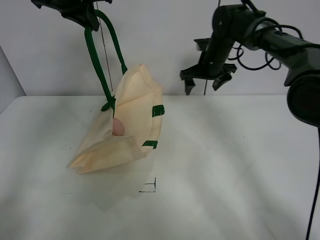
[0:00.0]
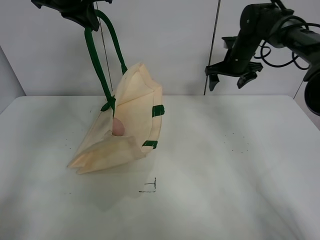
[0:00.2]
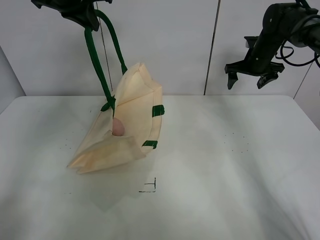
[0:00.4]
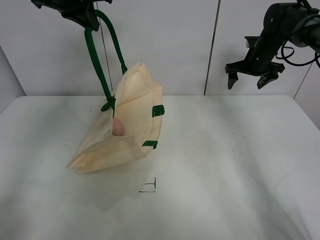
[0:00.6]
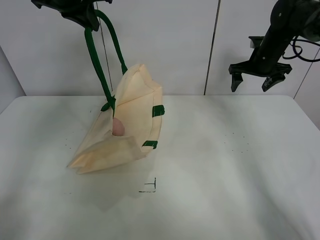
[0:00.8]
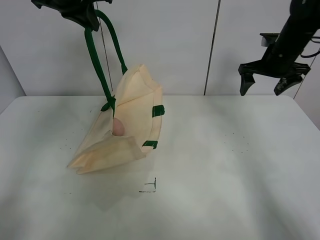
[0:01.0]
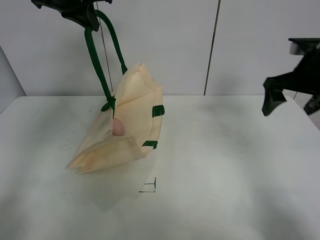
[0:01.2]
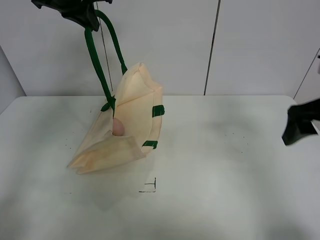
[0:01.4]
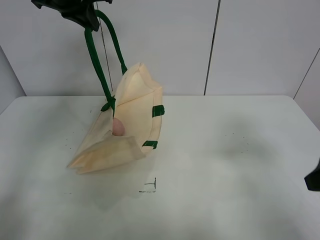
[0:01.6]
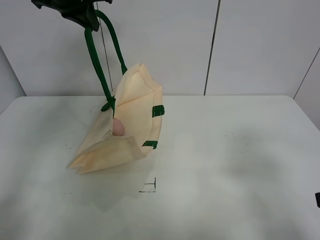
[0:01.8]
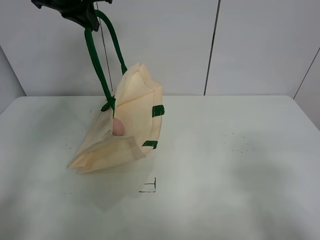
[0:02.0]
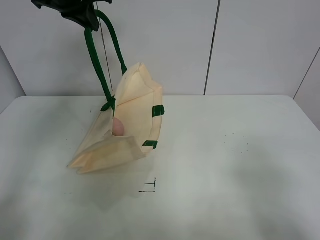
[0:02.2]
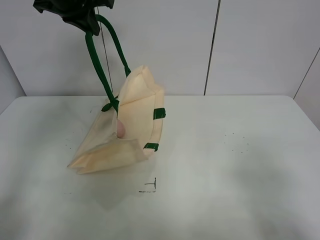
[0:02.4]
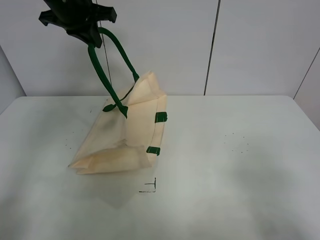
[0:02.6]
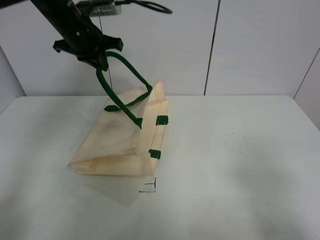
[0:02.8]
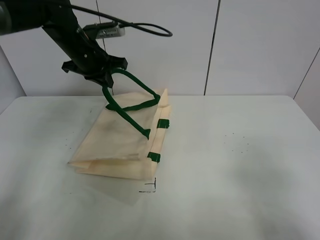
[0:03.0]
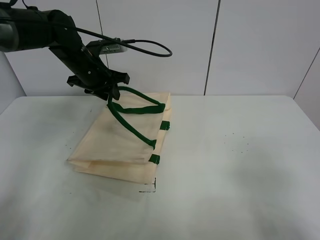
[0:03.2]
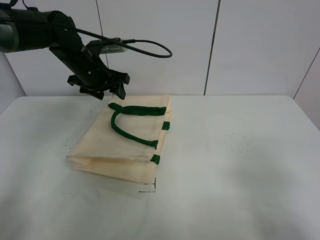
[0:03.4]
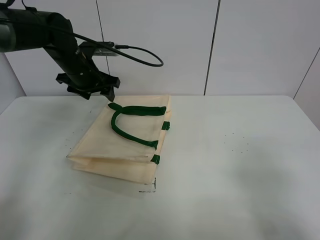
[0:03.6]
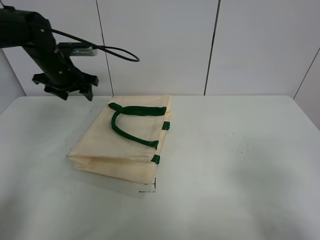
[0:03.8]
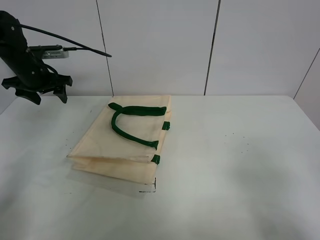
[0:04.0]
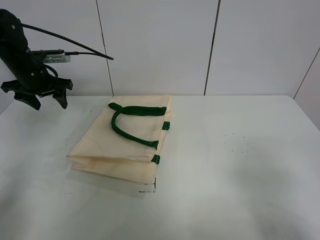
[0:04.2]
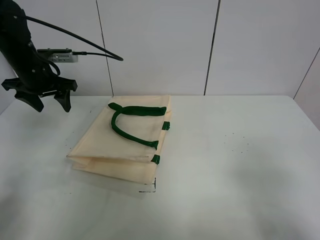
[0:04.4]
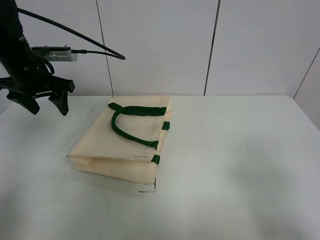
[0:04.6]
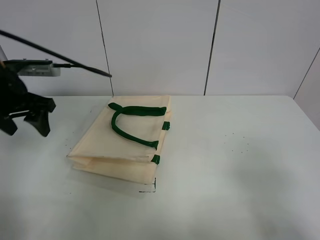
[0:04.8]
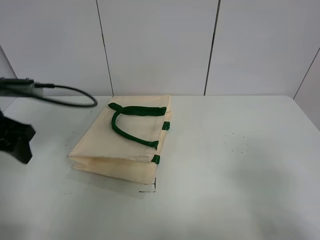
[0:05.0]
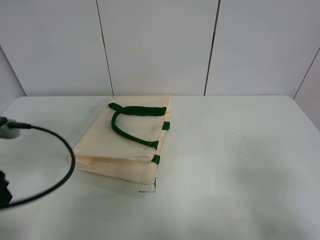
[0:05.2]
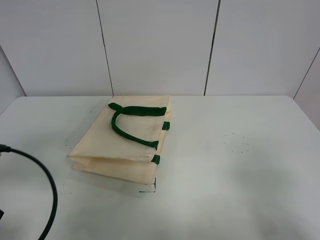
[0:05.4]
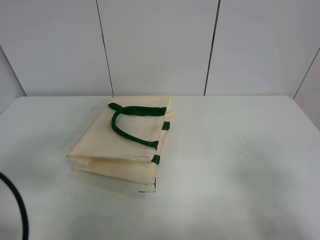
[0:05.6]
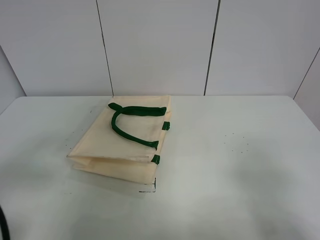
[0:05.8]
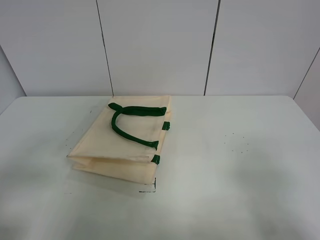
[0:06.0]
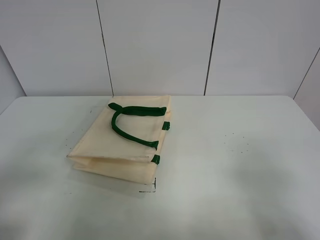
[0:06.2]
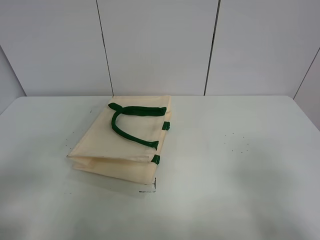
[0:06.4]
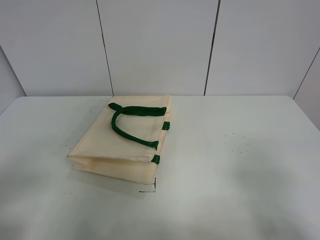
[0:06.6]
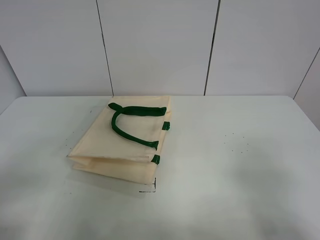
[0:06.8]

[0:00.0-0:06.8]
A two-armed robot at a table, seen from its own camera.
Task of the whole recording: open the white linen bag and put the peach in the bag.
Step, 0:00.0 to 0:03.4: Put down the handbag with left gripper.
0:00.0 to 0:01.4: The right gripper shifts some 30 cm backward and to the right.
0:01.4 to 0:02.8: The left gripper is displaced downward by roughly 10 cm, while the right gripper goes about 25 cm backward.
0:02.8 to 0:04.0: The left gripper moves to the left and downward, approximately 15 cm, and opens.
0:04.0 to 0:05.4: The left gripper moves backward, some 35 cm.
0:05.4 to 0:06.8: The left gripper travels backward by roughly 10 cm.
